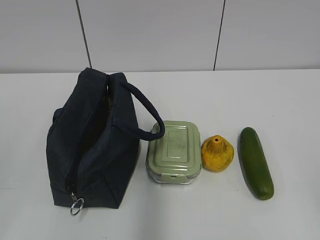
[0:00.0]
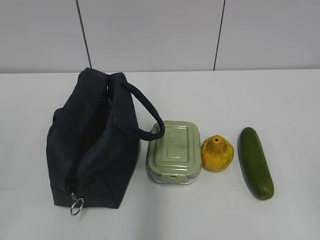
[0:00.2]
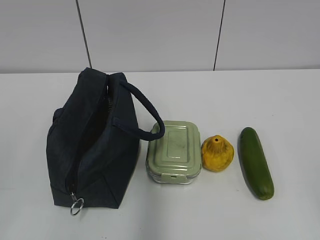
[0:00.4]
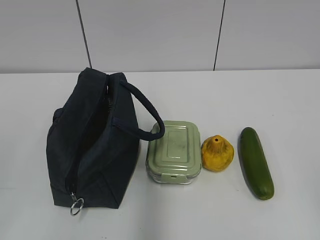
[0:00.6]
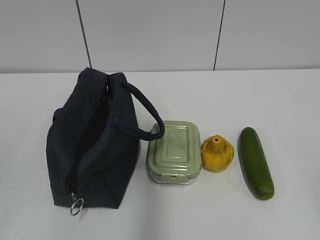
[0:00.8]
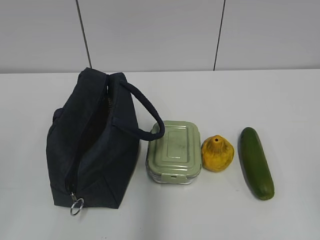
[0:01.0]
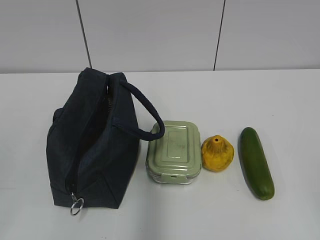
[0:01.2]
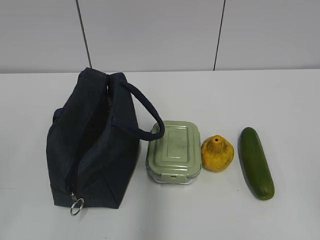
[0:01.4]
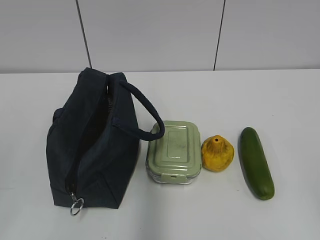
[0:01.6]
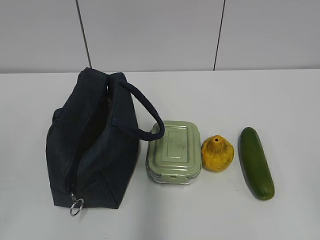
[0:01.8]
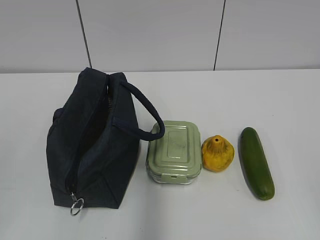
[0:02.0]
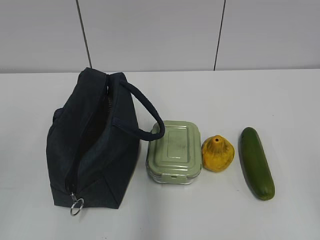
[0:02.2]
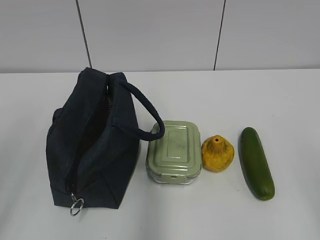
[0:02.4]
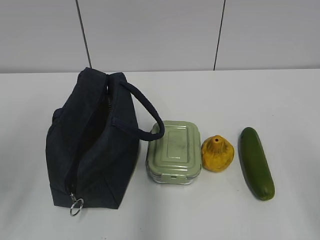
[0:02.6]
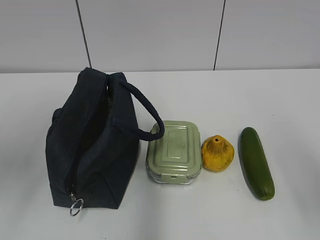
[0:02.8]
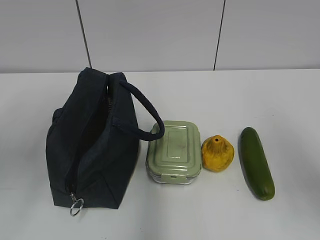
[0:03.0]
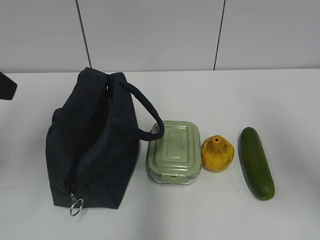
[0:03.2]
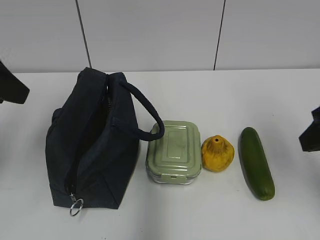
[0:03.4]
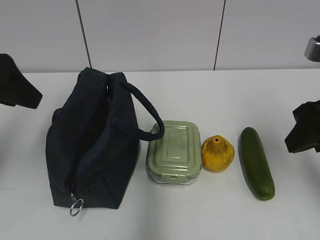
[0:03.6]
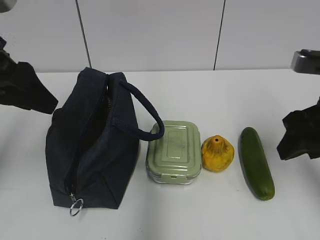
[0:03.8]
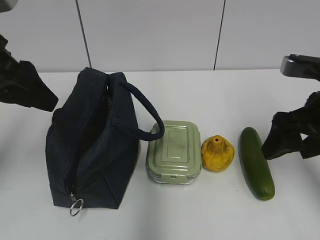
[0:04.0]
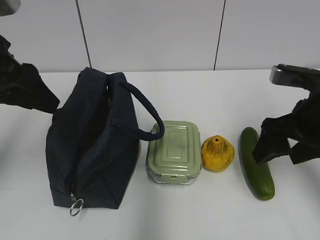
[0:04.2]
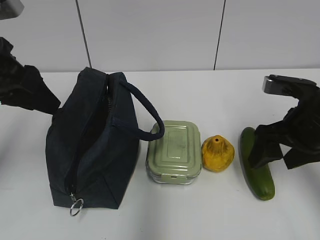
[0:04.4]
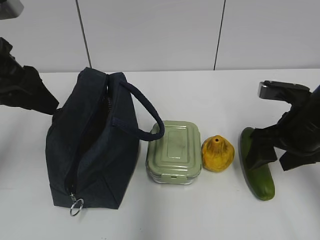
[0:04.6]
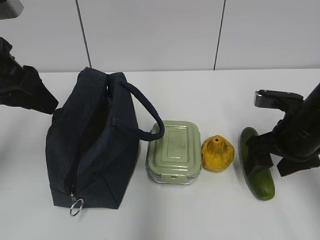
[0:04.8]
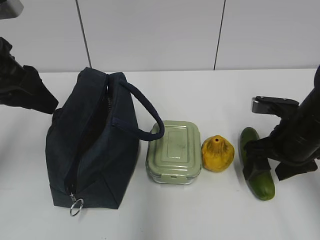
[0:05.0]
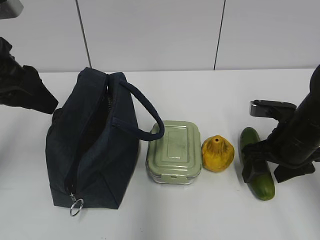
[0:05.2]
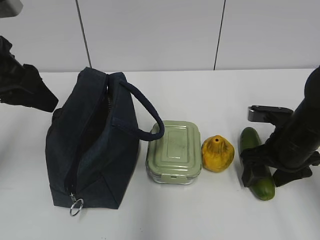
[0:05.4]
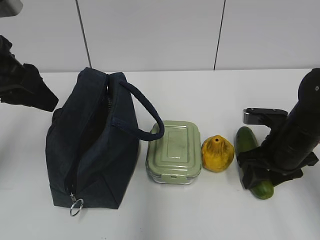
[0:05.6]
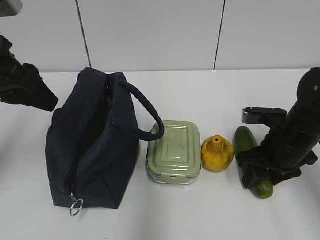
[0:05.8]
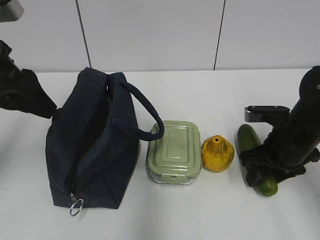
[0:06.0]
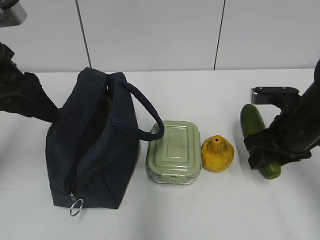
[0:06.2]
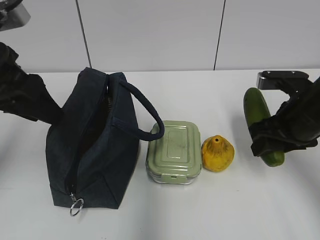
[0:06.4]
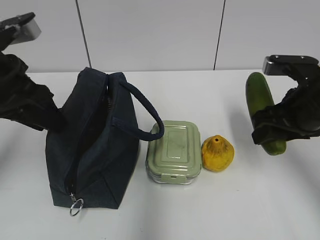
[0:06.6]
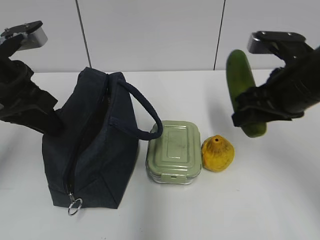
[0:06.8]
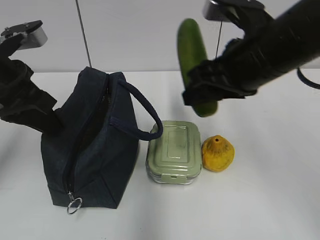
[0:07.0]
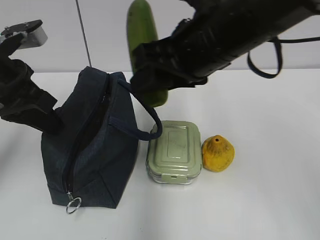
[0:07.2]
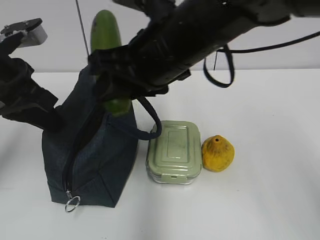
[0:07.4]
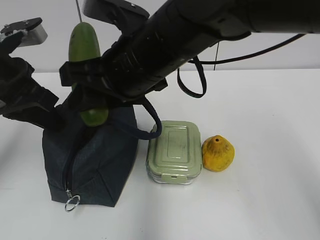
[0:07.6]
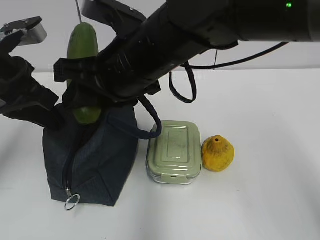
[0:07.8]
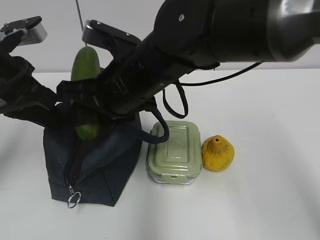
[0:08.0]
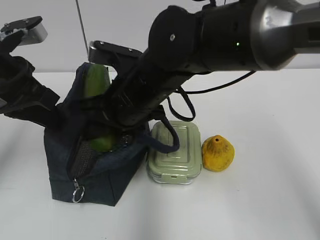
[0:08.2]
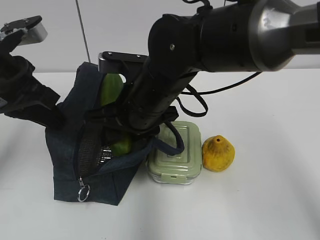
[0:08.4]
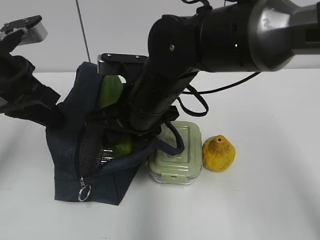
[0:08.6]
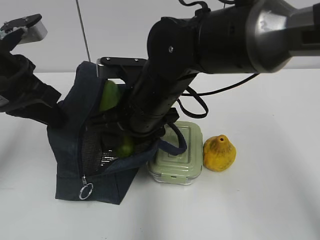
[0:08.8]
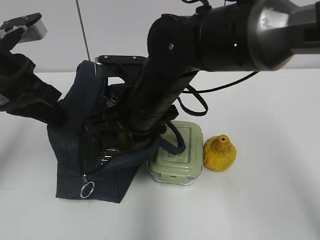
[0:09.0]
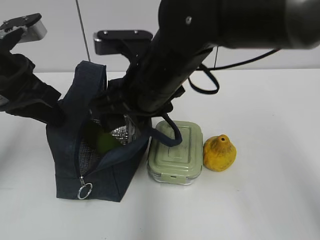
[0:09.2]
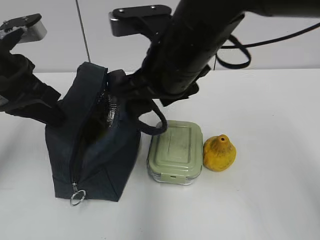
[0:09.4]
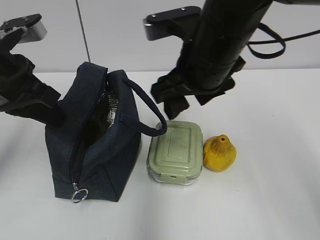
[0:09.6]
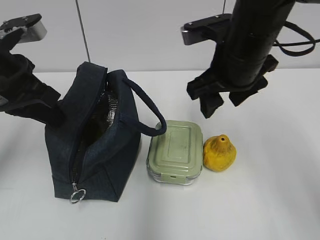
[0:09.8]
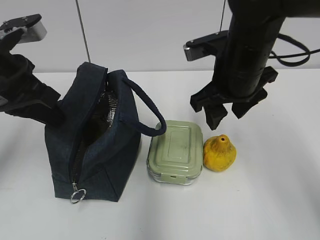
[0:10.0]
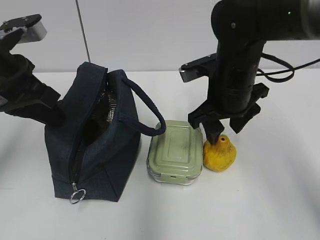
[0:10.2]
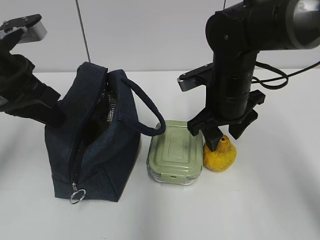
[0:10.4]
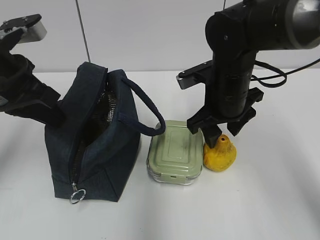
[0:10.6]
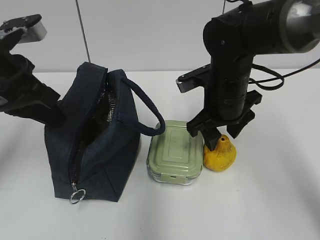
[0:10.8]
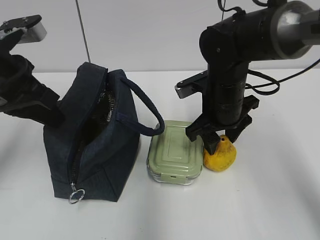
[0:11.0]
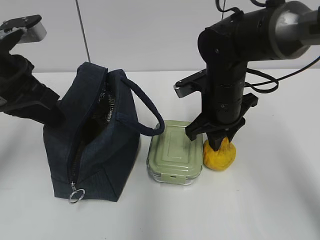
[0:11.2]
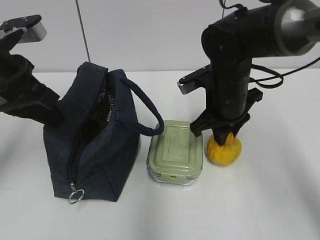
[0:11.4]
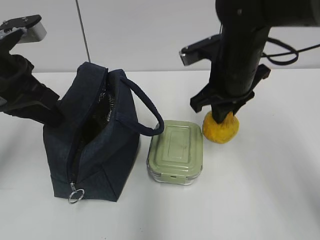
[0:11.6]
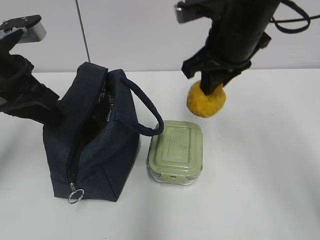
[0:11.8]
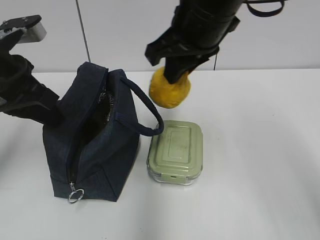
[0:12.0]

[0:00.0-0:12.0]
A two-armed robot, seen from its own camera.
0:01.6 to 0:03.0: Both grippers move forward, roughly 20 cm.
0:03.0 to 0:04.4: The right gripper goes about 15 cm forward and downward. Meanwhile the left gripper is displaced forward by approximately 5 cm.
0:04.4 to 0:06.0: The right gripper is displaced downward by about 5 cm, and closes up.
0:06.0 to 0:07.6: The right gripper shifts some 30 cm to the left and upward. The left gripper closes up.
0:07.6 to 0:09.0: The right gripper heads downward, covering some 5 cm.
0:09.0 to 0:10.4: The right gripper is displaced to the right by about 10 cm.
0:10.4 to 0:12.0: The right gripper heads upward and to the left, covering some 15 cm, and closes up.

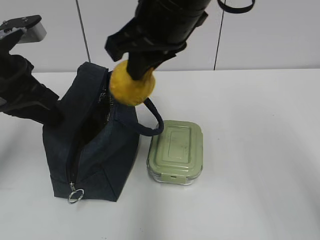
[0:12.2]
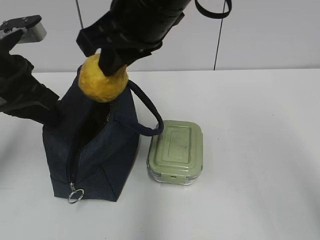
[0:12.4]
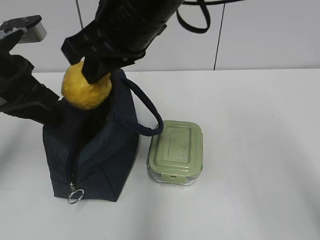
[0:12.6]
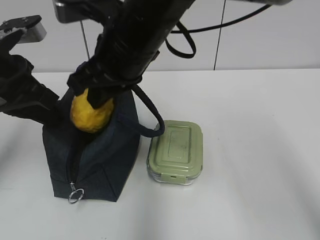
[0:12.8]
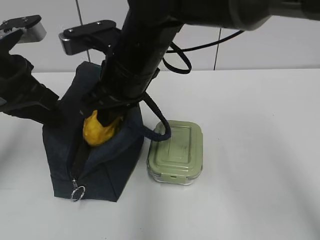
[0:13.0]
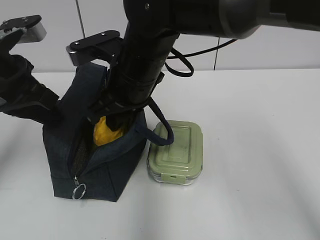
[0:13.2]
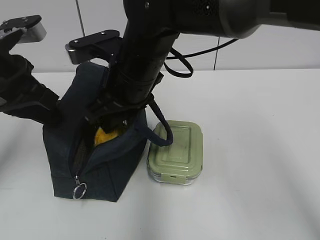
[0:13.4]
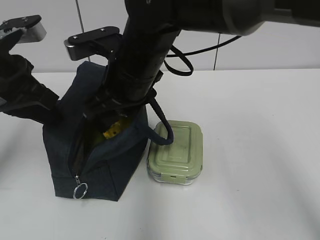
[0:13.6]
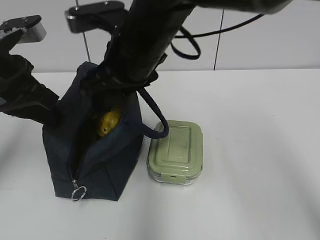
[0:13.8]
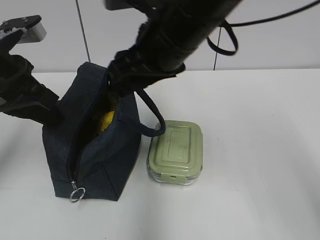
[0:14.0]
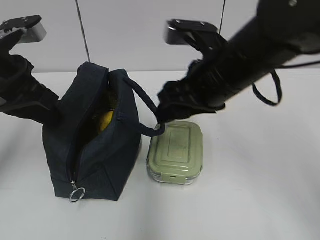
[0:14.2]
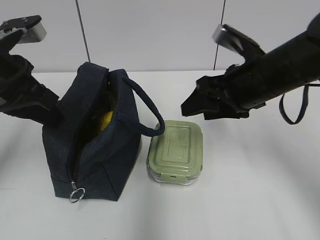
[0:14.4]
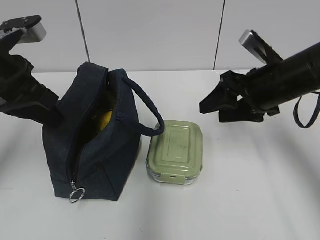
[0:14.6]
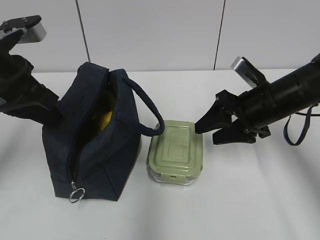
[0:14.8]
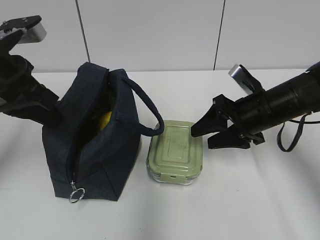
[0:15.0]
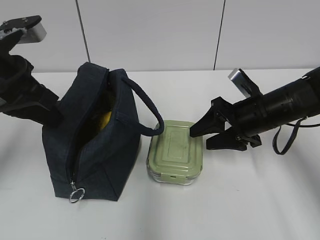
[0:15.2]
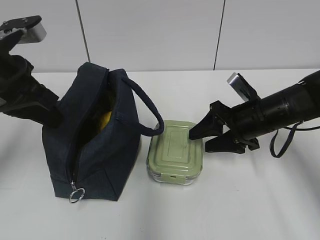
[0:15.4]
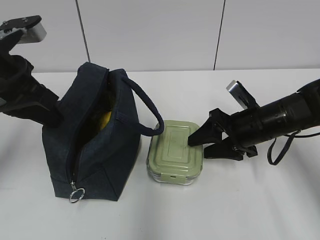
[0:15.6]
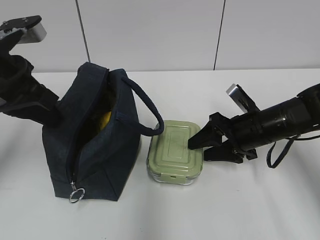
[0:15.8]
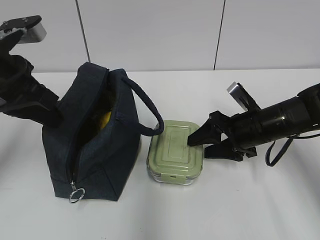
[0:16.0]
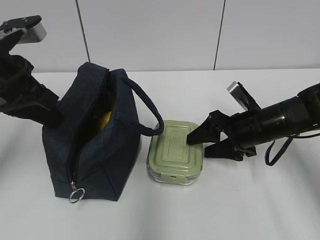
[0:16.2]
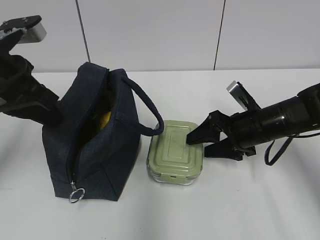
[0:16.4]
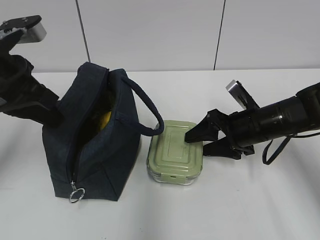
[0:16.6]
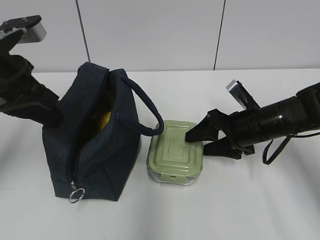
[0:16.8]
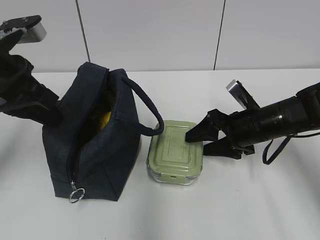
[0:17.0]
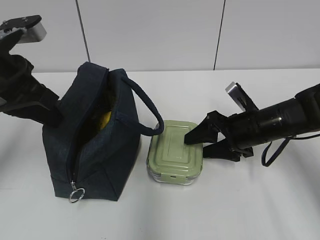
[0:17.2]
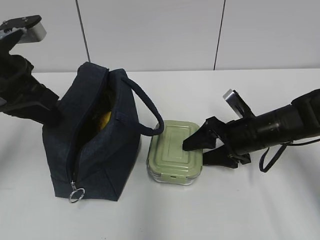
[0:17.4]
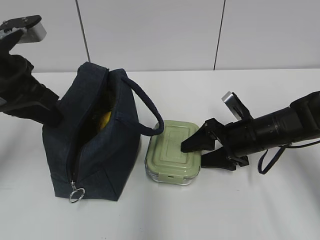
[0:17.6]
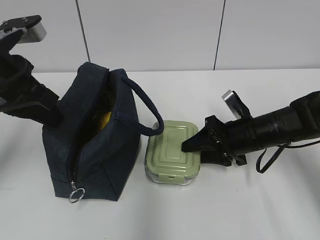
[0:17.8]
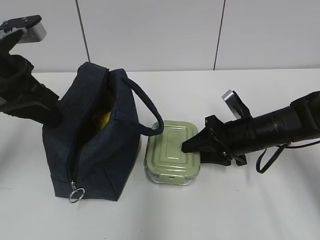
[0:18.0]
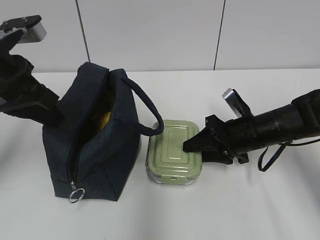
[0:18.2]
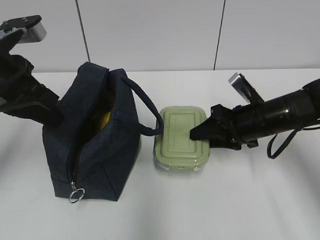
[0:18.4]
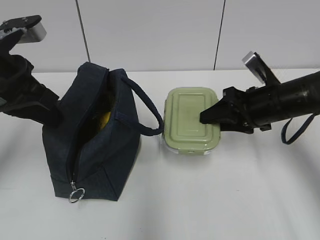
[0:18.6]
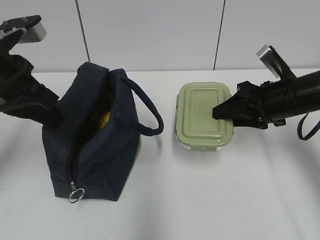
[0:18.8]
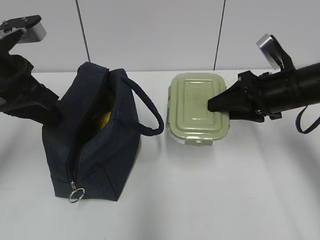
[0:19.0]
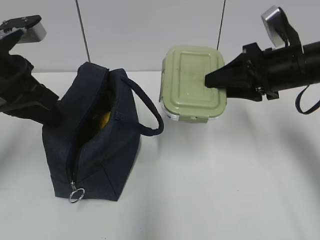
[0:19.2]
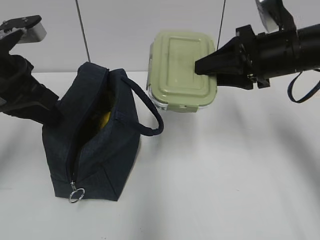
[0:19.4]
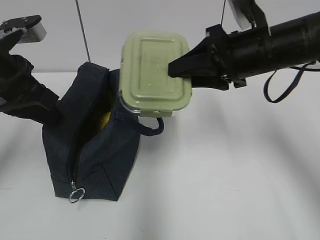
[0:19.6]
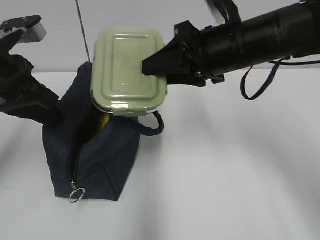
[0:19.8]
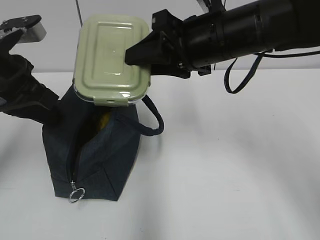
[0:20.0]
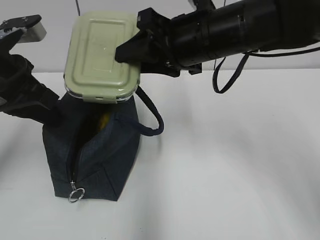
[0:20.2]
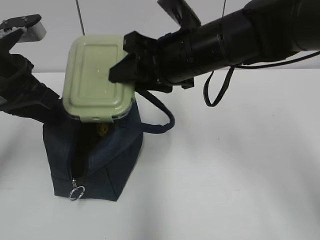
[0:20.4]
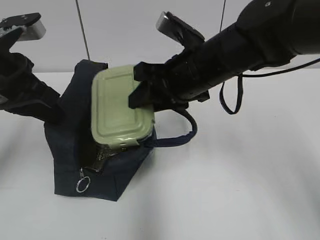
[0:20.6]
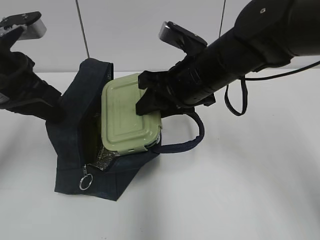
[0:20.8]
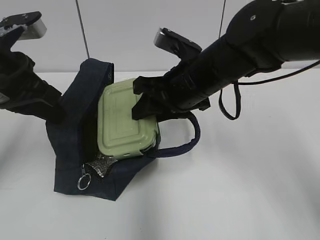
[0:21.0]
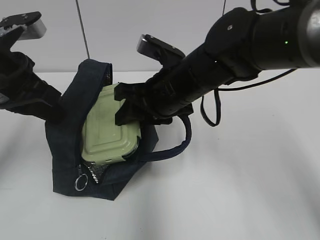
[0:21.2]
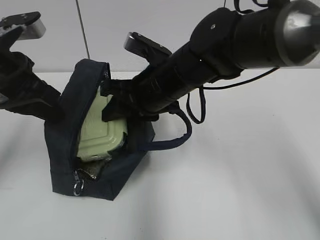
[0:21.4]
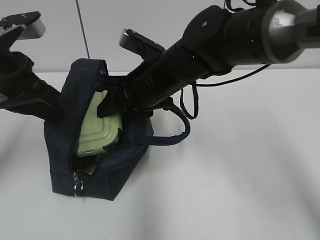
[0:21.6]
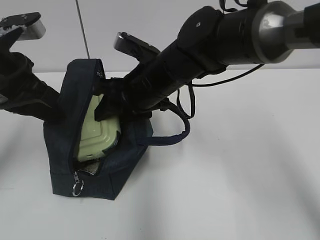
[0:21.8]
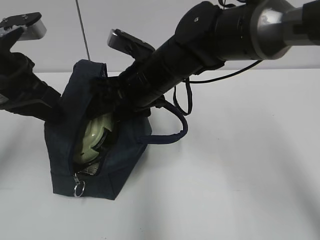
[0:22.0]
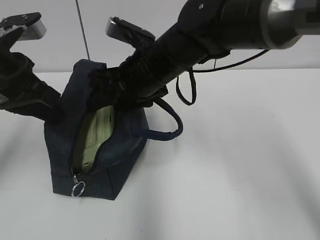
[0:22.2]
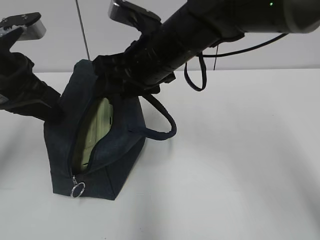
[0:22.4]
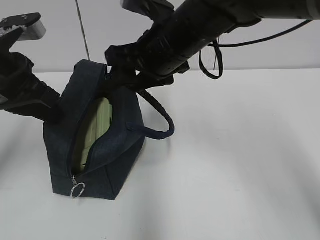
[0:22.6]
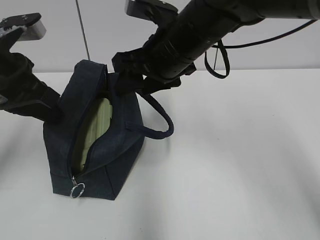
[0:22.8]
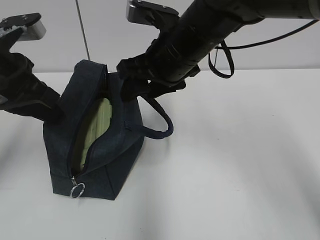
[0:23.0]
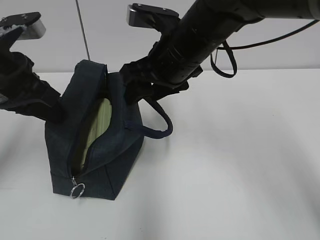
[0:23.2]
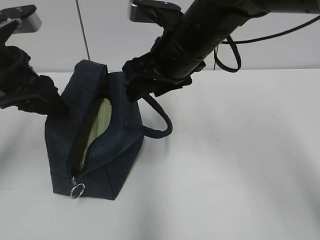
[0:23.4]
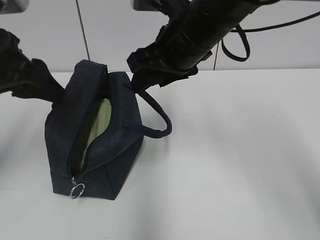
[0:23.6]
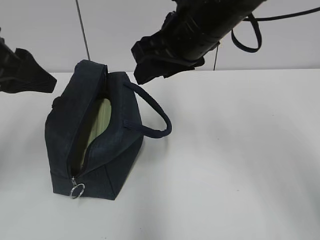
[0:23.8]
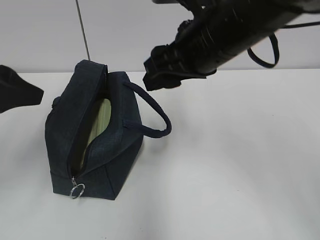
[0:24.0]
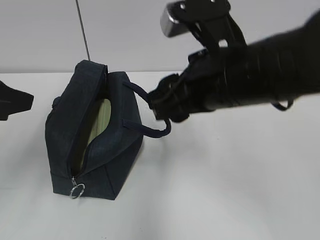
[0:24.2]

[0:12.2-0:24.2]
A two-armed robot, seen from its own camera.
0:12.2 to 0:13.8: The right gripper opens.
0:13.8 to 0:15.2: The right gripper heads to the right and downward, covering roughly 25 cm.
0:15.2 to 0:16.6: The grippers stay close to where they were, moving slightly.
0:16.6 to 0:18.2: The right gripper closes up.
0:18.2 to 0:19.8: The right gripper heads upward and to the left, covering some 20 cm.
0:19.8 to 0:21.2: The right gripper moves to the left and downward, about 10 cm.
0:21.2 to 0:22.6: The right gripper shifts about 5 cm upward.
0:22.6 to 0:24.2: The grippers both shift backward by approximately 10 cm. The left gripper opens.
